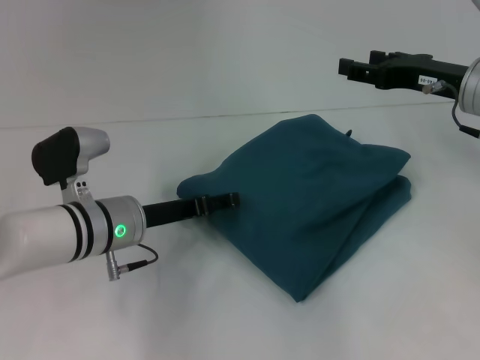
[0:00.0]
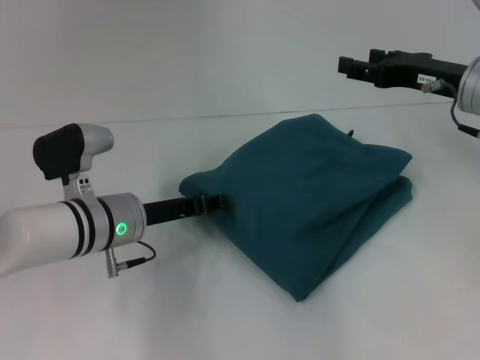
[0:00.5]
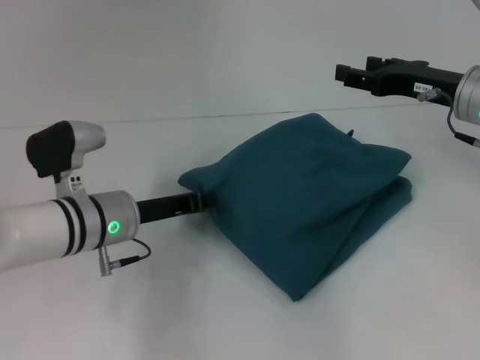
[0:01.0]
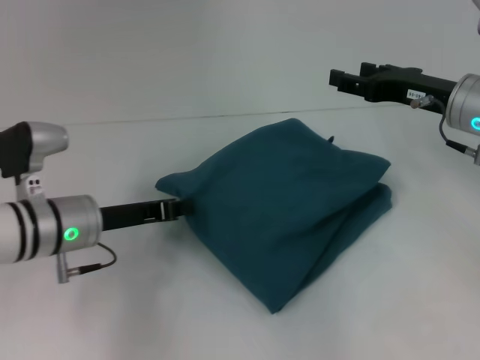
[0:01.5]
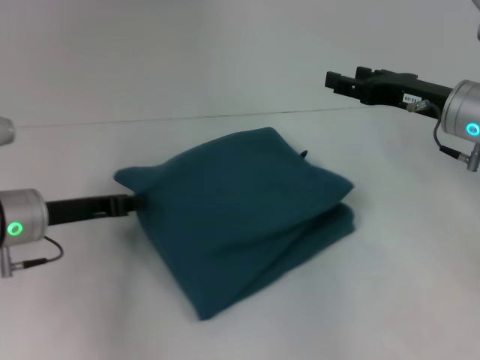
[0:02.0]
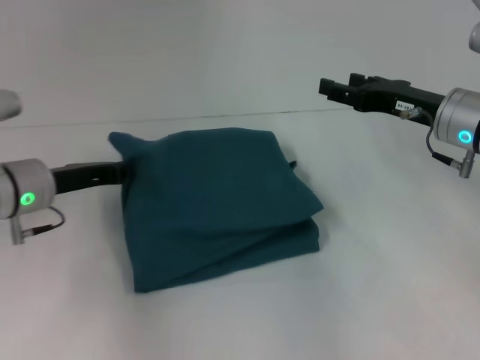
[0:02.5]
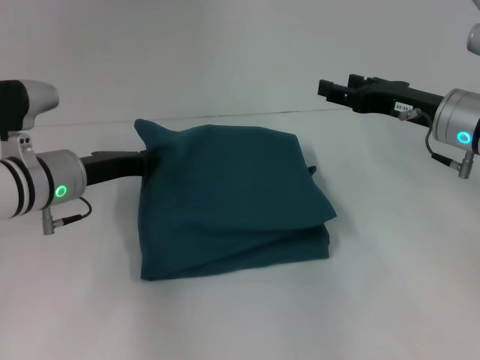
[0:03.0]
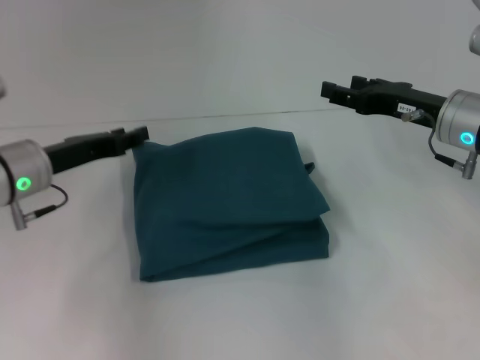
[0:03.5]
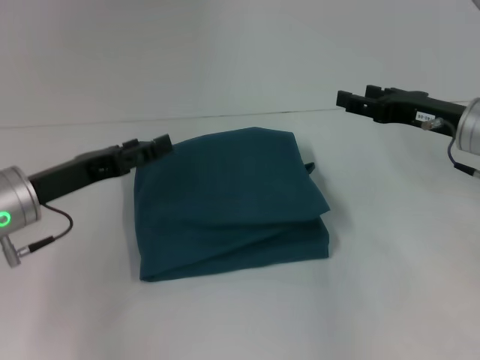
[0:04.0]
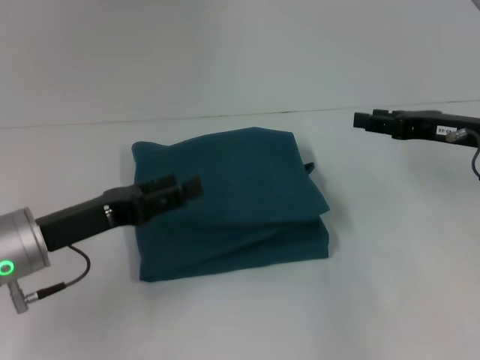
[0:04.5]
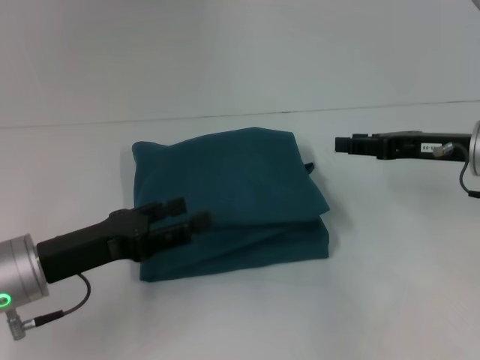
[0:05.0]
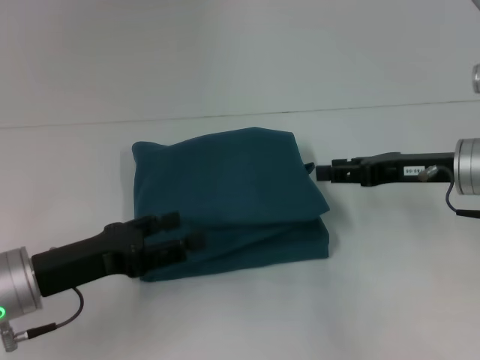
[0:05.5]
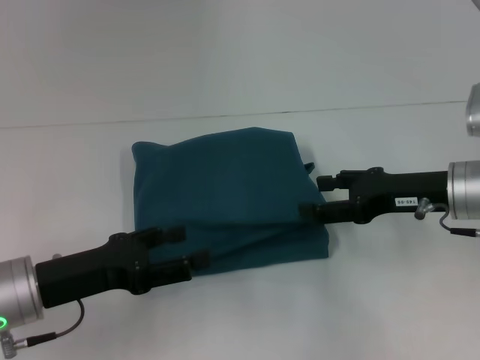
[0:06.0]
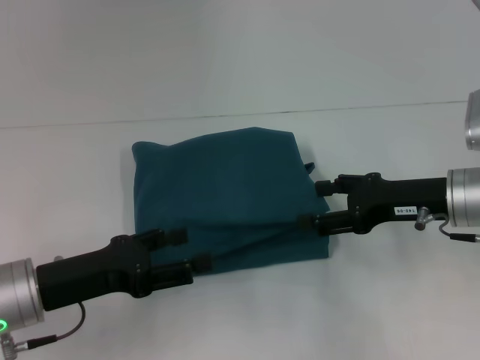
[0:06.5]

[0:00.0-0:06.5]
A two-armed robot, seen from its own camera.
0:00.0 to 0:02.0: The left gripper travels to the left by approximately 10 cm, and closes.
0:02.0 to 0:04.5: The left gripper goes approximately 5 cm backward, and opens up.
0:04.5 to 0:06.5: The right gripper moves roughly 5 cm.
